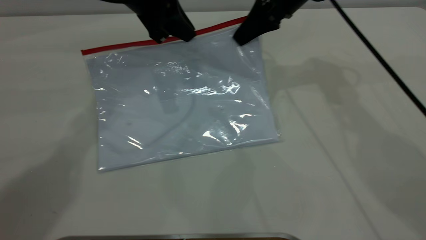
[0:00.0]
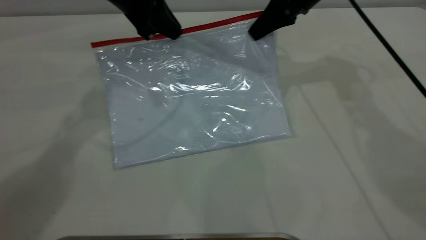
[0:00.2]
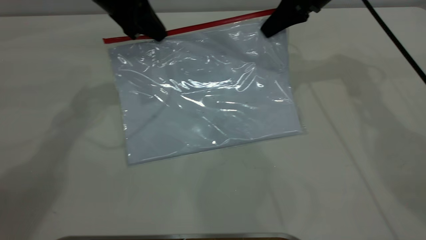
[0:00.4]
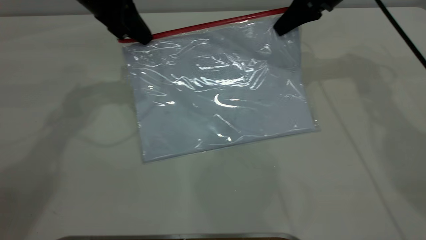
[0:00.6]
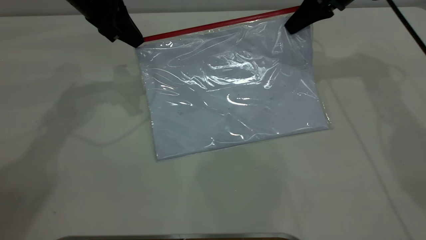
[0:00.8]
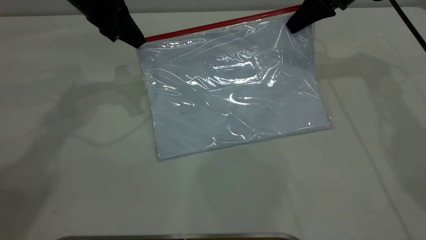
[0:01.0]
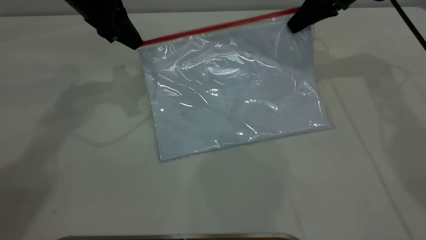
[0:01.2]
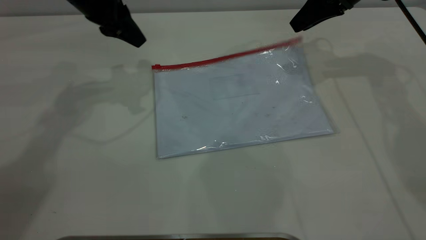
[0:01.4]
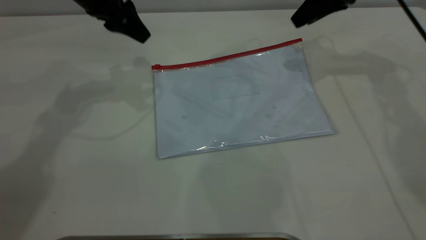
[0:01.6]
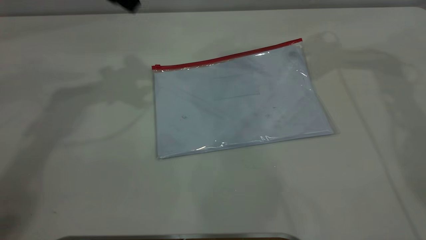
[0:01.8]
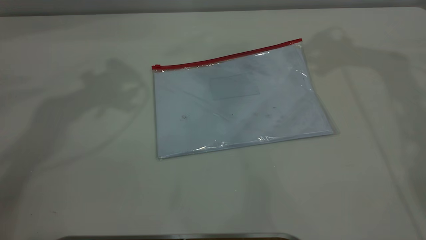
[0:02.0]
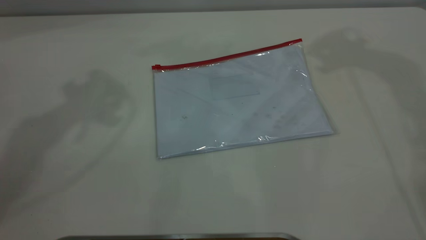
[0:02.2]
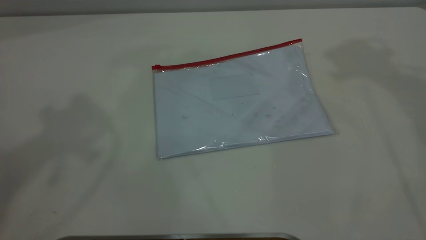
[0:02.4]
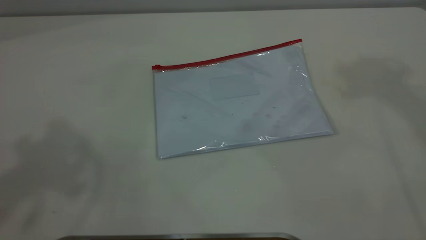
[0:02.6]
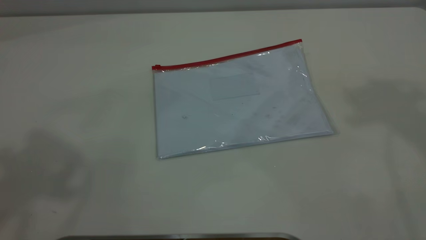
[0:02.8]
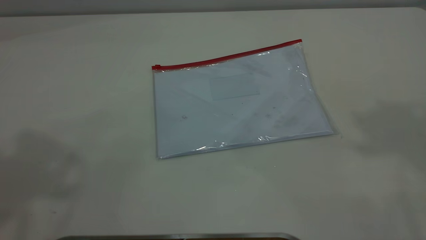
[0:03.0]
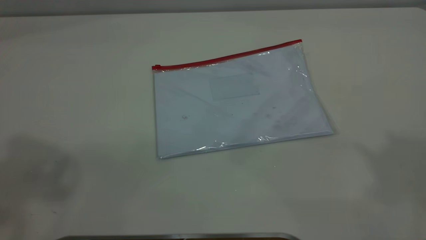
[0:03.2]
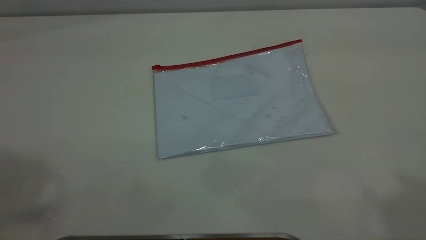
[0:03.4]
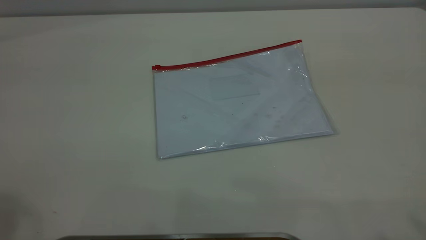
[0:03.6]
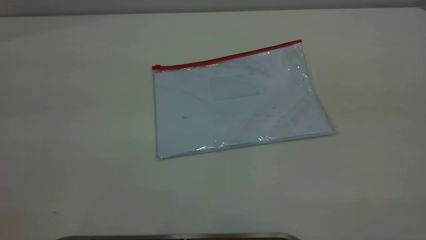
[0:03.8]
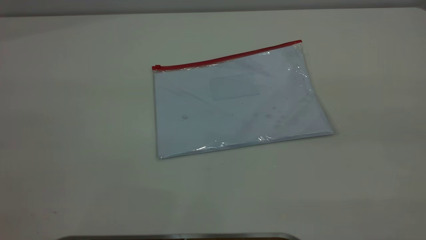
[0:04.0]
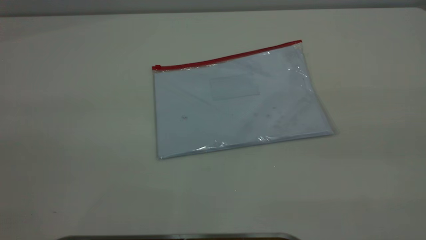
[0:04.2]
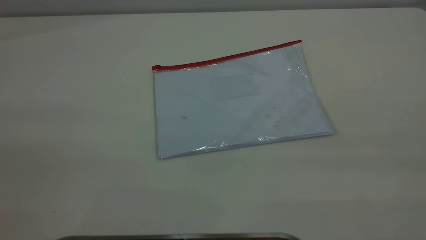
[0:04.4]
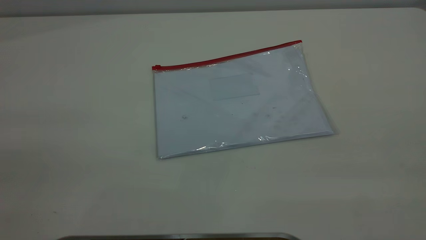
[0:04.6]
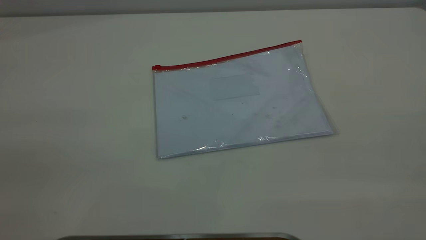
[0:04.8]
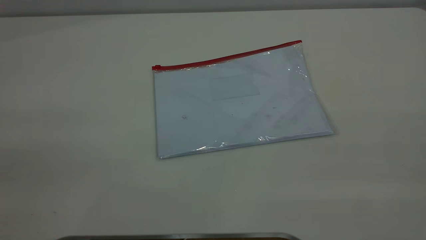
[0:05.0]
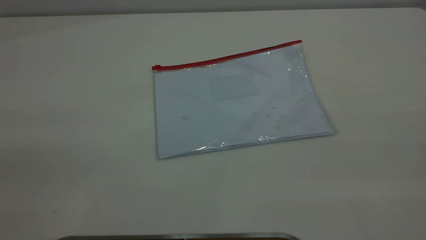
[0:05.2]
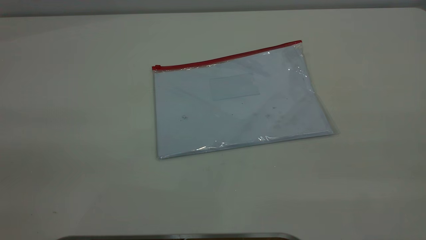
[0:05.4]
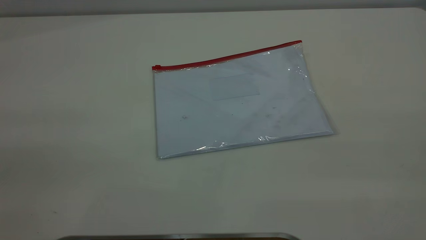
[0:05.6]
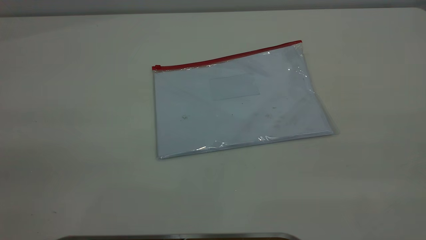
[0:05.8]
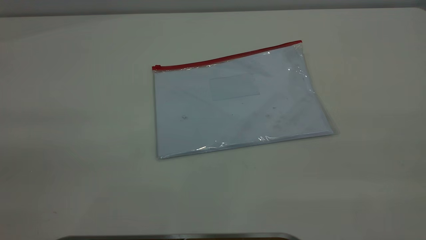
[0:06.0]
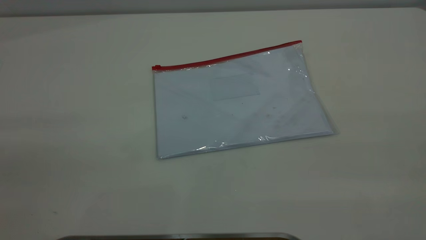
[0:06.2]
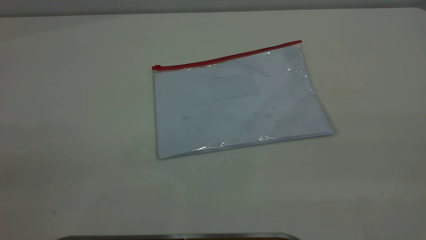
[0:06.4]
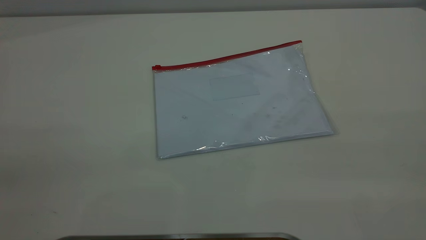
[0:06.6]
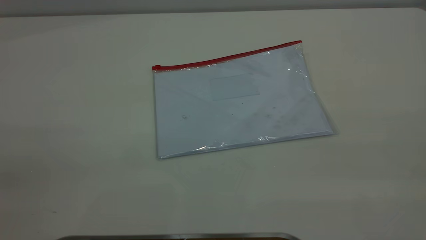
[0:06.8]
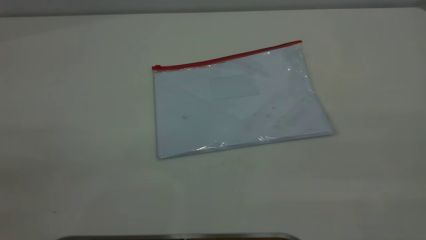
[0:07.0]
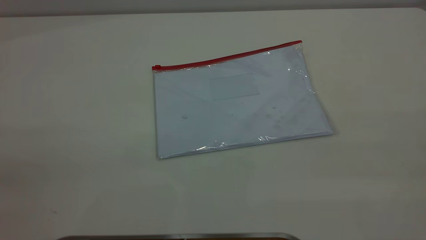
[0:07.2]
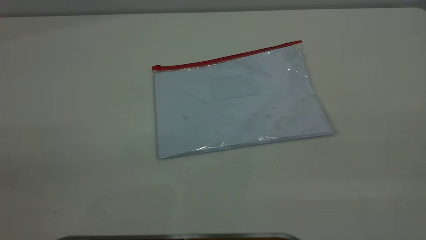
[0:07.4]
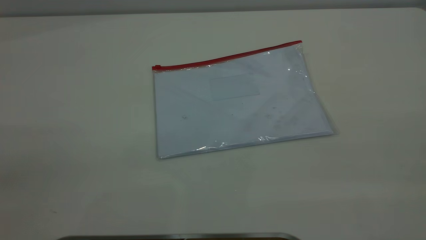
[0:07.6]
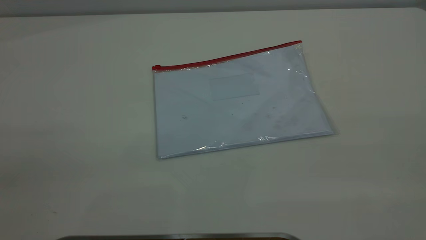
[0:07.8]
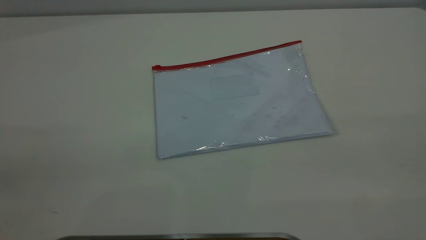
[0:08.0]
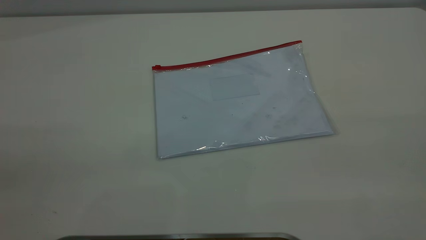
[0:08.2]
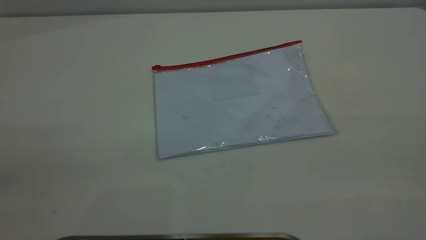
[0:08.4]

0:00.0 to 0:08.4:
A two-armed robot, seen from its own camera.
Step, 0:01.2 to 0:02.8: Place the transparent plastic bag.
0:00.0 to 0:01.4: The right gripper is displaced to the right by roughly 10 cm, and opens its fingers. Meanwhile the left gripper shifts roughly 5 cm to the left, and opens.
0:01.4 to 0:02.8: The grippers both shift upward and backward by some 40 cm.

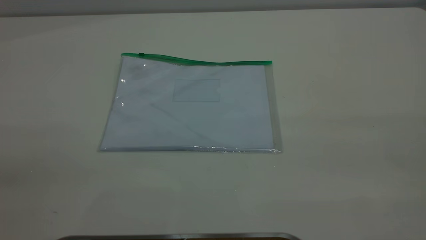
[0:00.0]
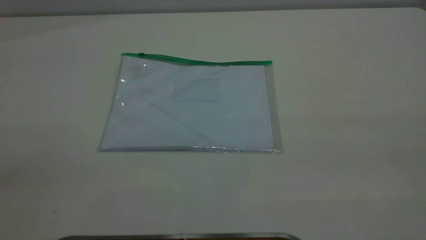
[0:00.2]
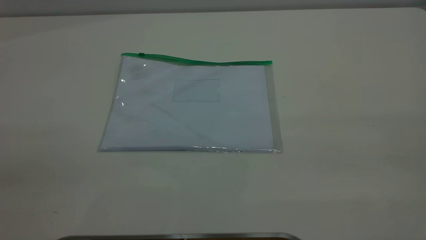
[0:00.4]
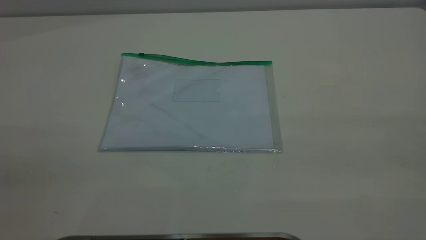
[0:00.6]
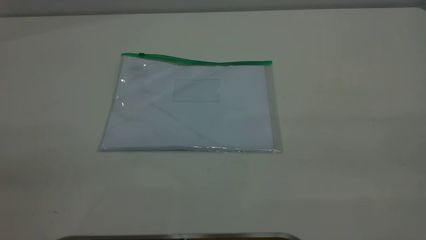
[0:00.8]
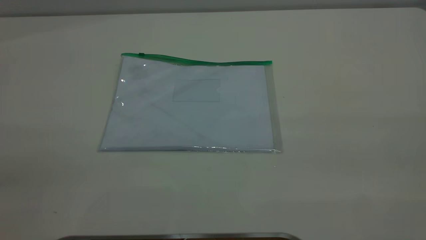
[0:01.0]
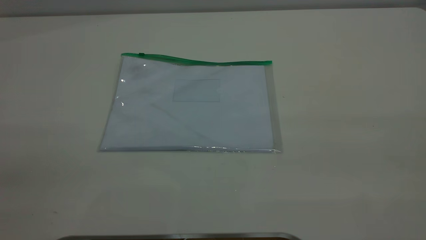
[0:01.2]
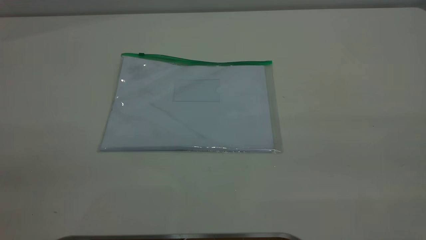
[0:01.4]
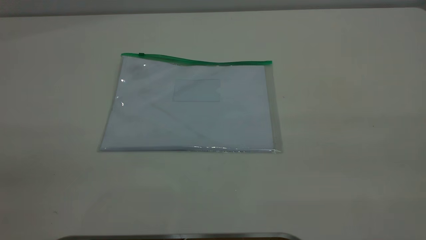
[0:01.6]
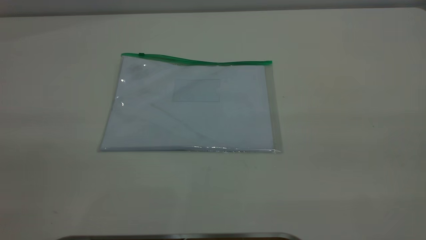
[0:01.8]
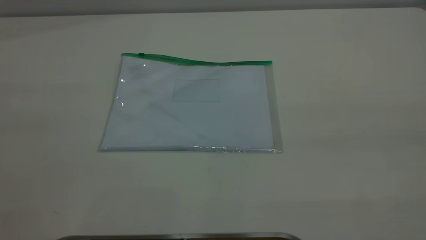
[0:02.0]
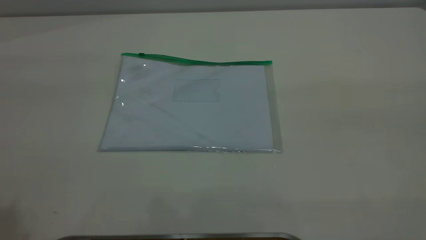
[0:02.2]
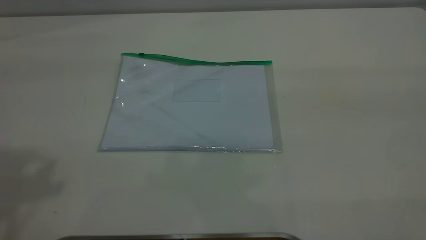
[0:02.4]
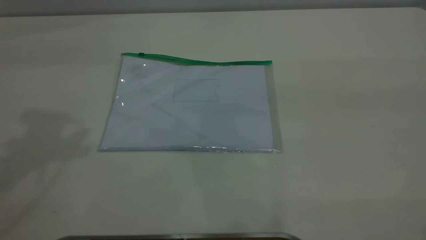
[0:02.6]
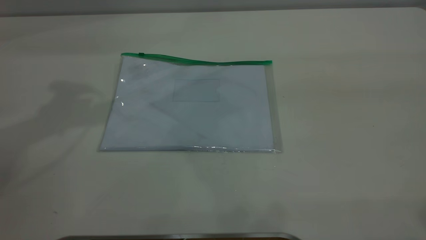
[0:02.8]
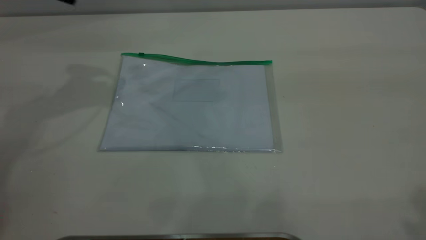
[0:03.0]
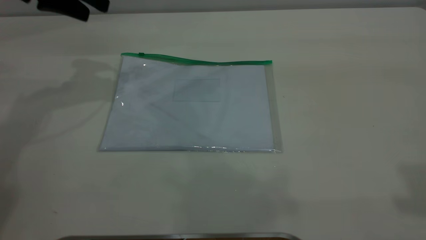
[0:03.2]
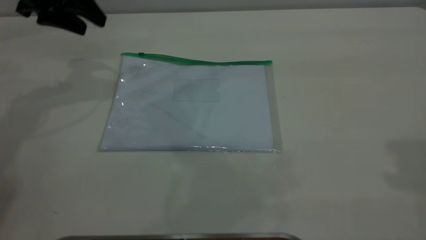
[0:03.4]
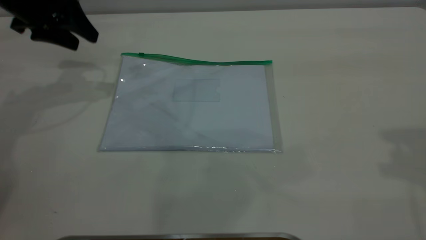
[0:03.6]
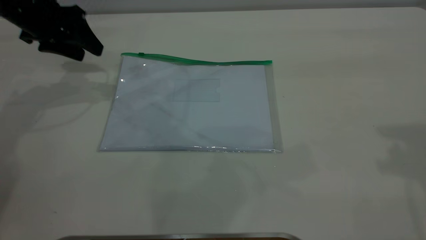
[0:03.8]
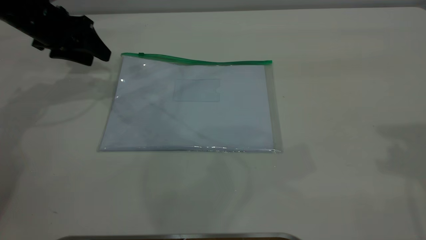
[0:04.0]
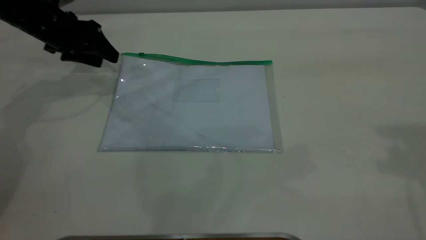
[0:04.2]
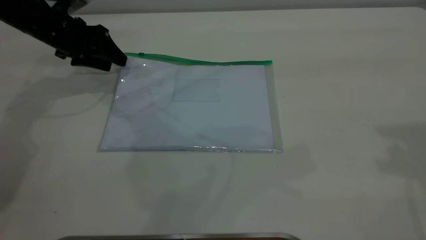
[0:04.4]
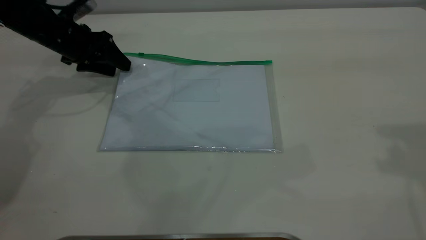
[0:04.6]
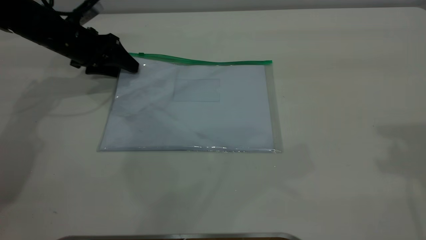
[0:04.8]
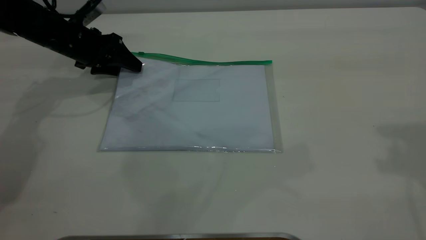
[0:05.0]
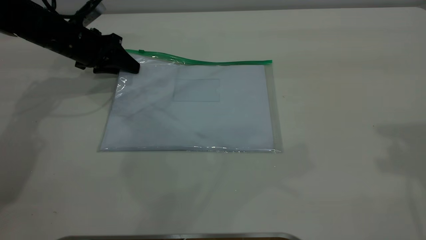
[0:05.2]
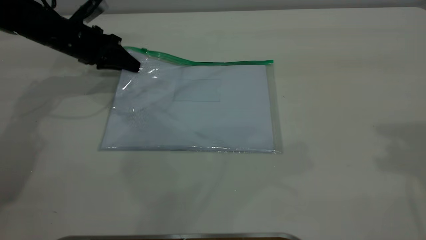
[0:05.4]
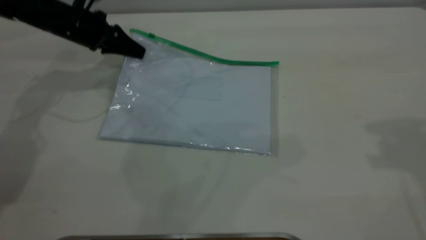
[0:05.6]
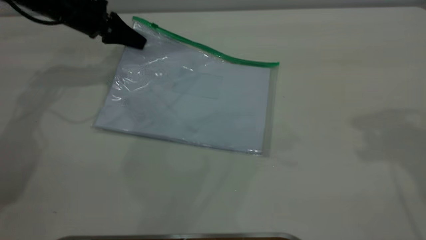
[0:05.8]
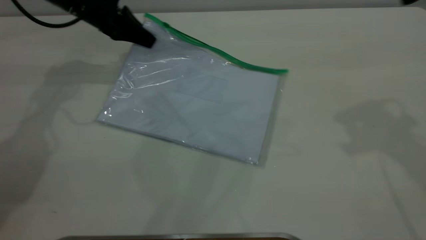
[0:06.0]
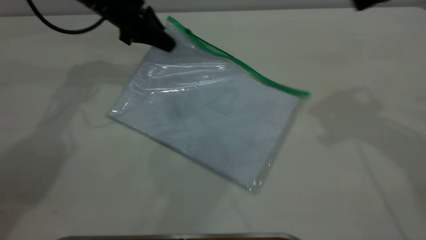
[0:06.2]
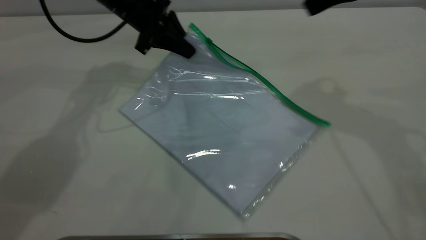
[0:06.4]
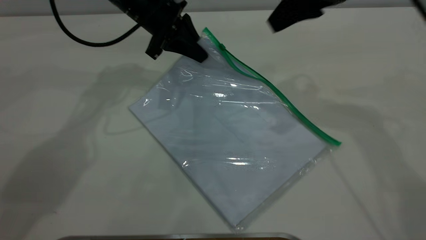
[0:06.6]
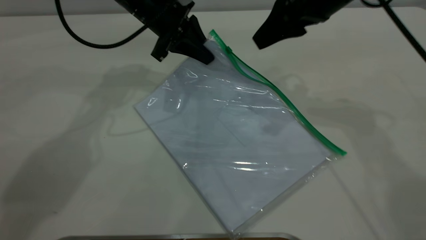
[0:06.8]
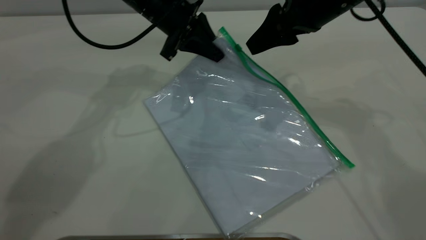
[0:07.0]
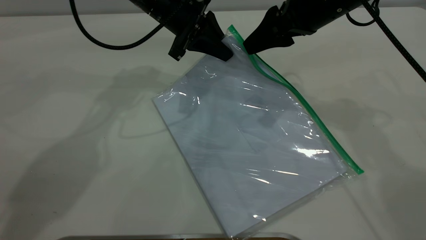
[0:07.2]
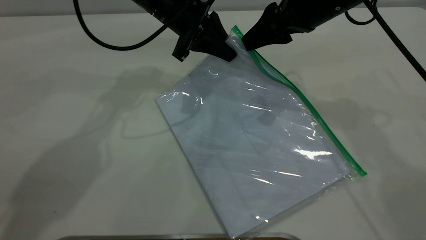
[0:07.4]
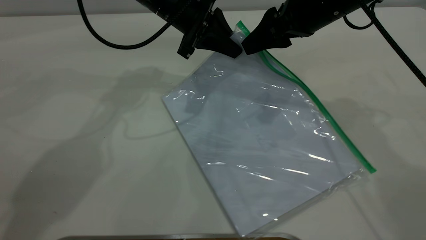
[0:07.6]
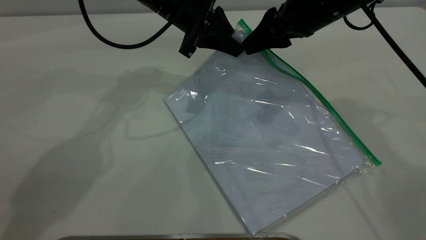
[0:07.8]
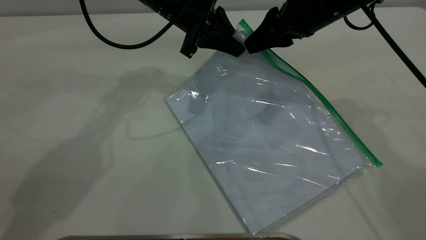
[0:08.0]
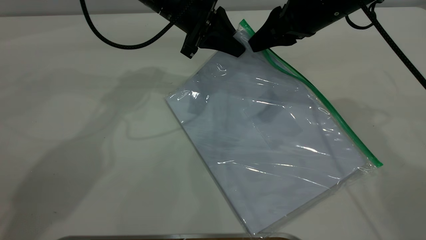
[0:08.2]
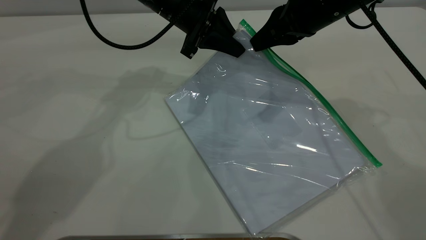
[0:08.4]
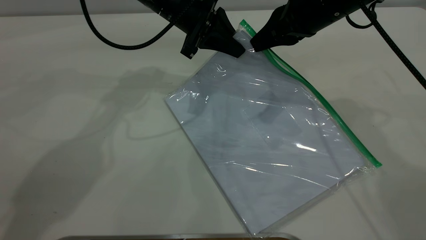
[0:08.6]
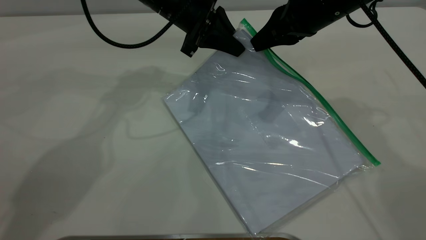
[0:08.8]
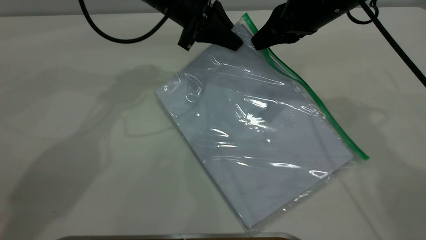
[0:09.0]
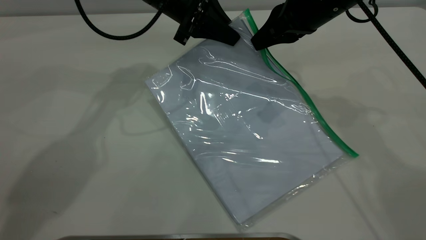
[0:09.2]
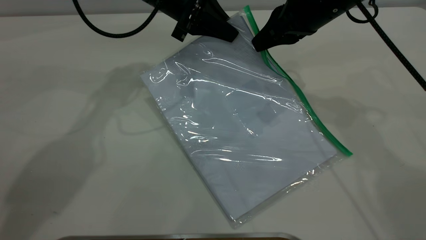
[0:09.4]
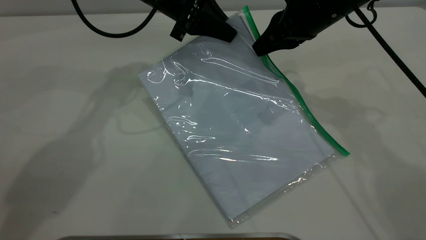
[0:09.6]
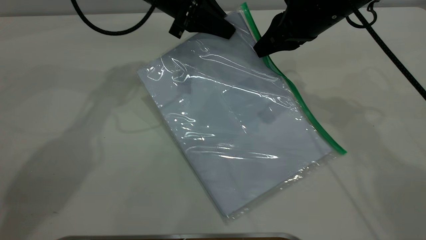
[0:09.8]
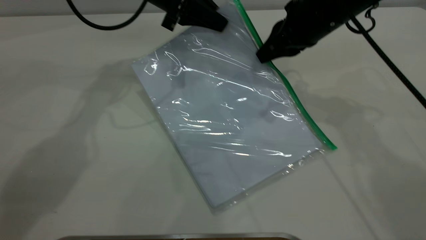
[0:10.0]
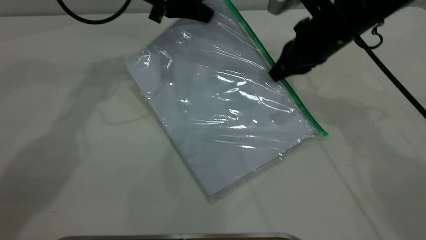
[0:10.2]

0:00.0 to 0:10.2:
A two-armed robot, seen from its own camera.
Step, 0:00.0 to 0:05.8: Pick up the transparent plastic bag with the left gripper.
0:00.0 to 0:01.4: The two grippers keep their place.
0:03.0 to 0:04.4: The left gripper travels downward by about 15 cm.
0:04.4 to 0:05.8: The left gripper ends up about 5 cm from where it was, and closes up.
0:05.8 to 0:07.2: The left gripper goes roughly 15 cm to the right. The right gripper heads downward, to the left and forward, covering approximately 20 cm.
0:07.2 to 0:08.8: The right gripper closes its fingers.
0:08.8 to 0:10.2: The left gripper is displaced to the left by roughly 5 cm.
